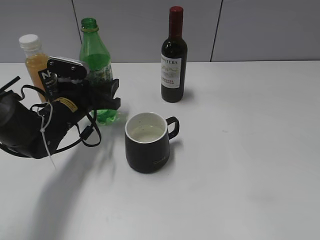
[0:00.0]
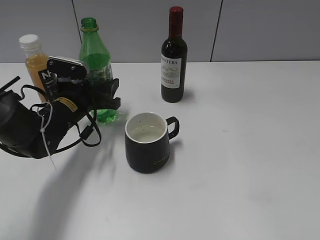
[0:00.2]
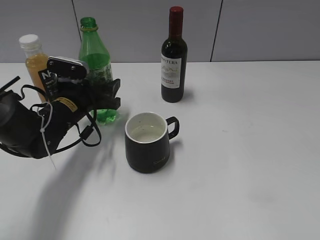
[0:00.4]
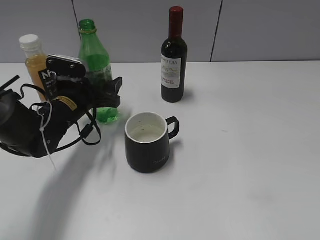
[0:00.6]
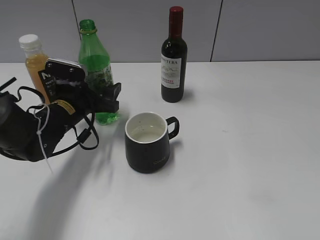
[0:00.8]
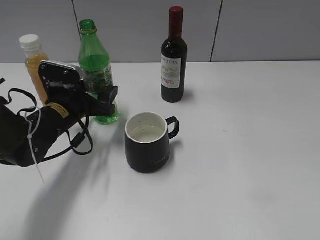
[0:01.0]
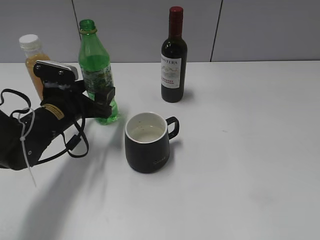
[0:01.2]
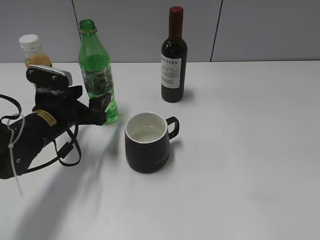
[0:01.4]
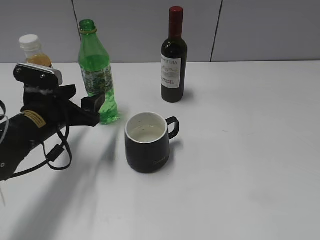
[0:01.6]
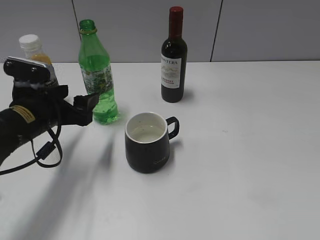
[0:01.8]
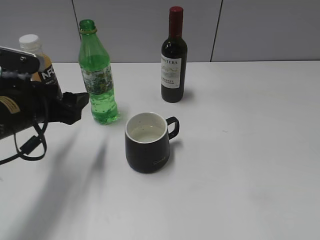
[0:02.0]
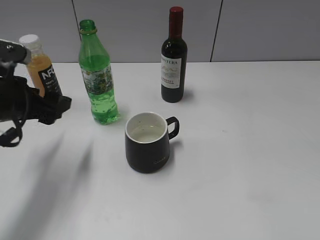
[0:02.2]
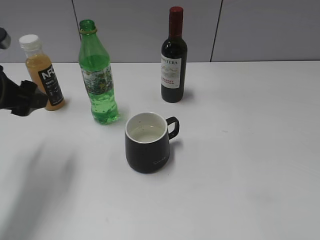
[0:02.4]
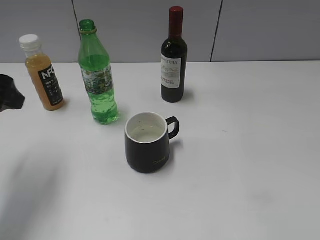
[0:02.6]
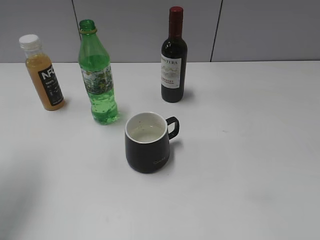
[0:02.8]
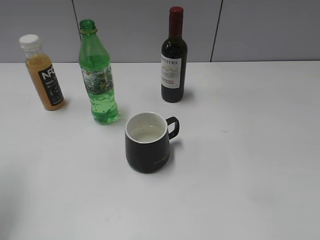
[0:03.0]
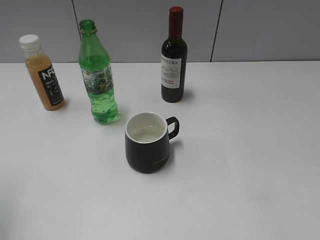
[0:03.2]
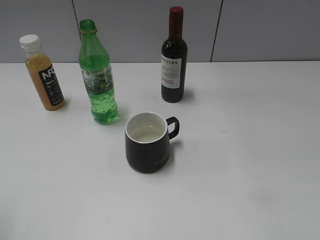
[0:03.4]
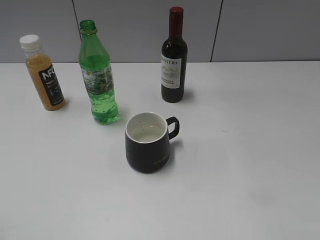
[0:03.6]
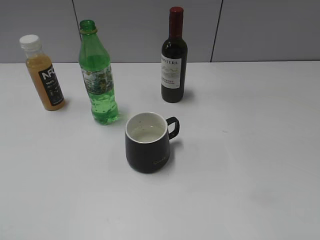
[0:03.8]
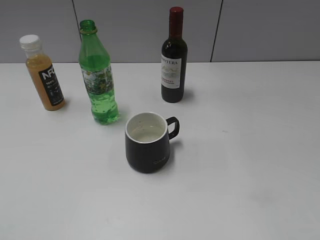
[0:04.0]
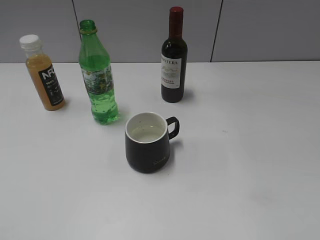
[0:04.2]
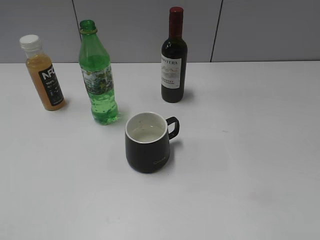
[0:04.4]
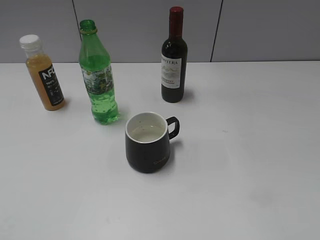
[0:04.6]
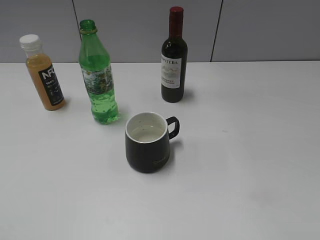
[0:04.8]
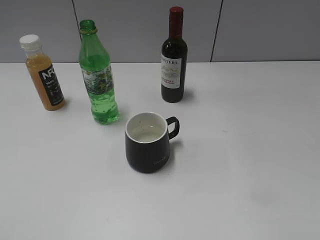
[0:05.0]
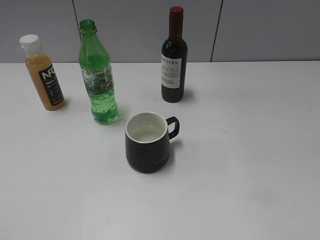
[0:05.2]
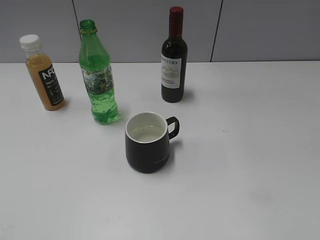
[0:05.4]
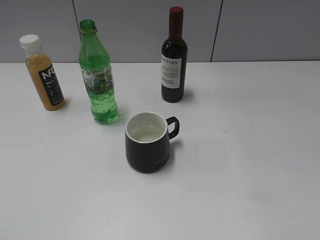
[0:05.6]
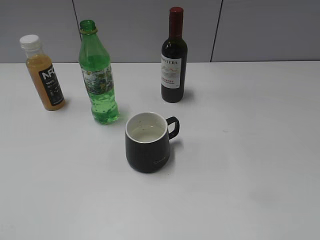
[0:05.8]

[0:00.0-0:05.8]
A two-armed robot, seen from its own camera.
0:00.0 to 0:01.4: The left gripper changes place by approximately 5 cm, and opens its fingers.
0:01.4 to 0:02.8: The left gripper is displaced upward, to the left and backward by some 20 cm.
0:02.8 to 0:04.4: The left gripper moves backward, some 20 cm.
